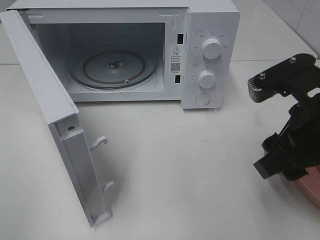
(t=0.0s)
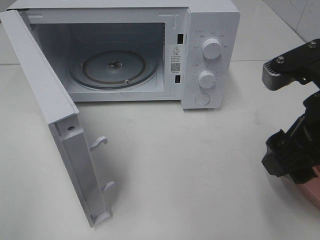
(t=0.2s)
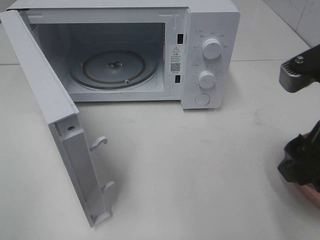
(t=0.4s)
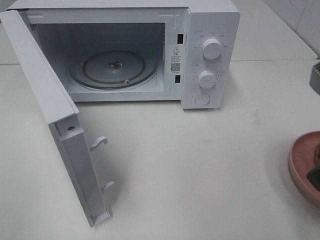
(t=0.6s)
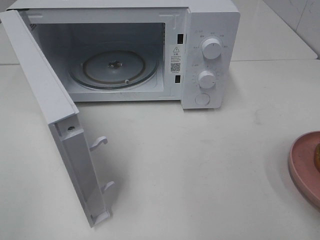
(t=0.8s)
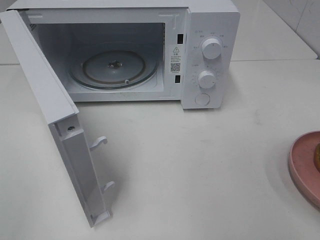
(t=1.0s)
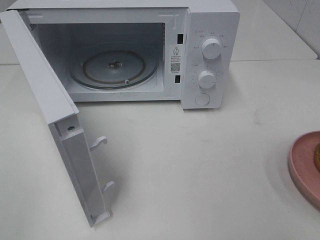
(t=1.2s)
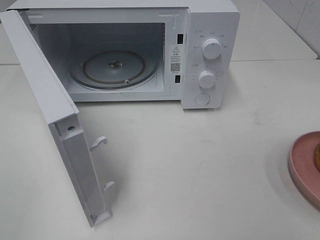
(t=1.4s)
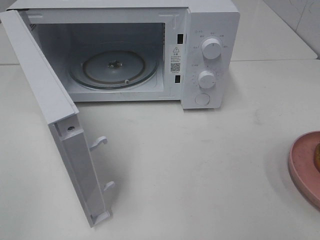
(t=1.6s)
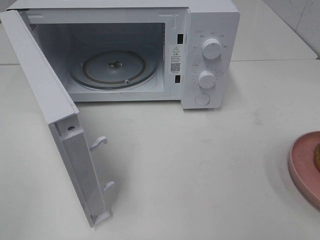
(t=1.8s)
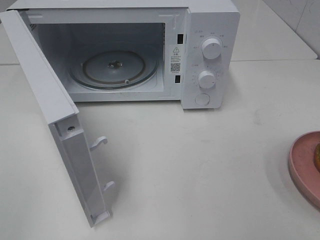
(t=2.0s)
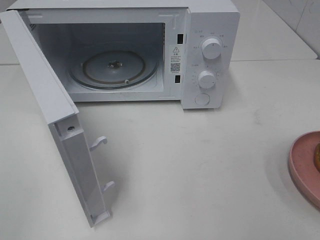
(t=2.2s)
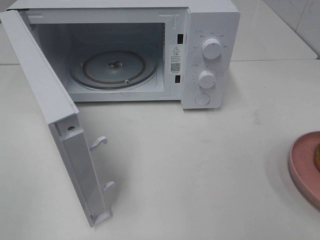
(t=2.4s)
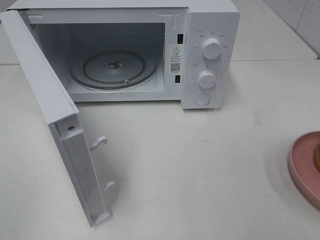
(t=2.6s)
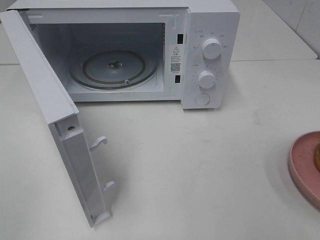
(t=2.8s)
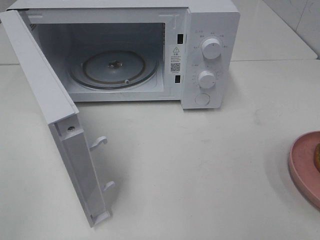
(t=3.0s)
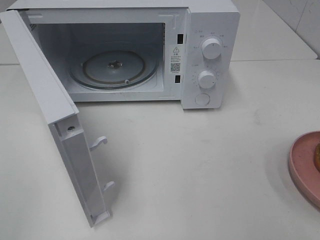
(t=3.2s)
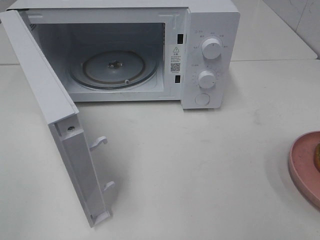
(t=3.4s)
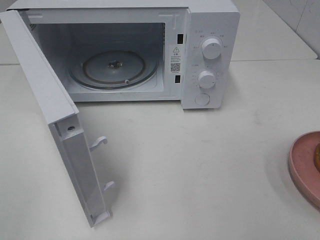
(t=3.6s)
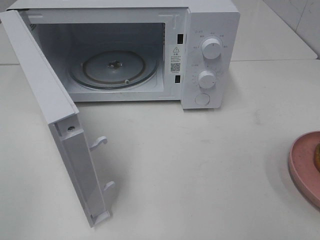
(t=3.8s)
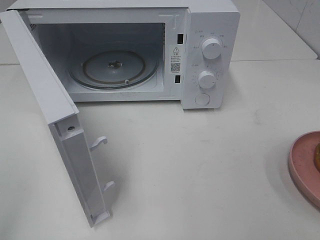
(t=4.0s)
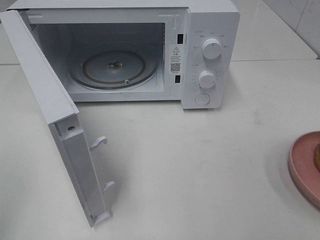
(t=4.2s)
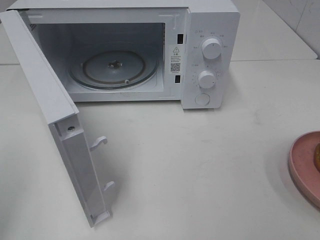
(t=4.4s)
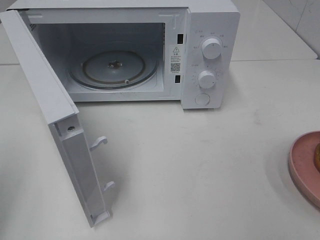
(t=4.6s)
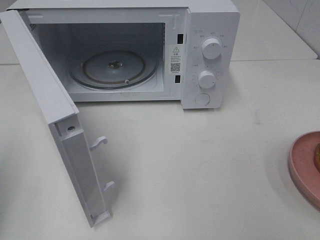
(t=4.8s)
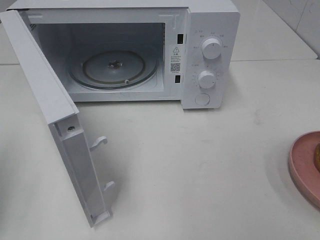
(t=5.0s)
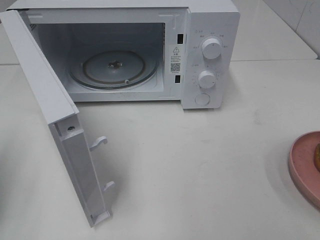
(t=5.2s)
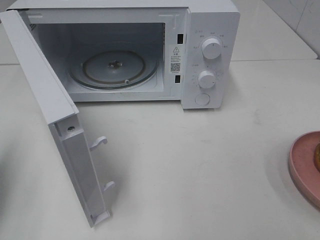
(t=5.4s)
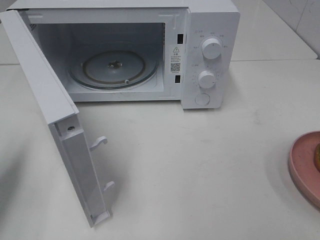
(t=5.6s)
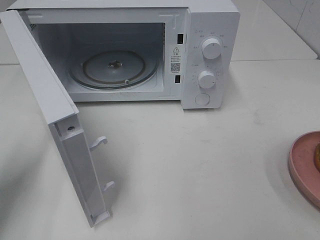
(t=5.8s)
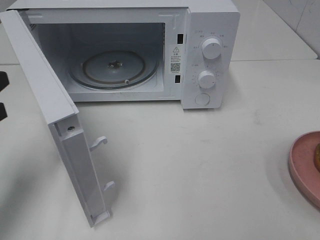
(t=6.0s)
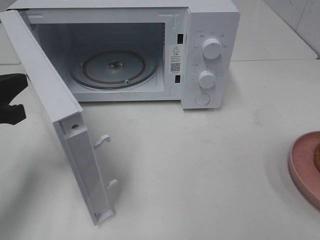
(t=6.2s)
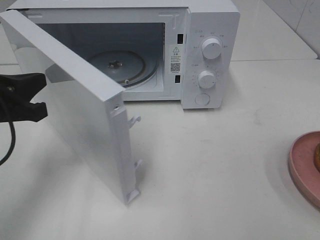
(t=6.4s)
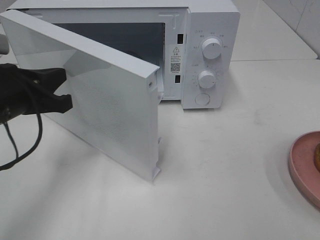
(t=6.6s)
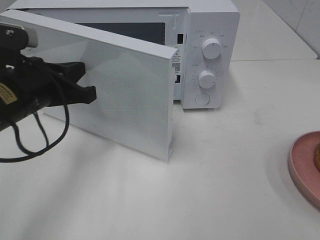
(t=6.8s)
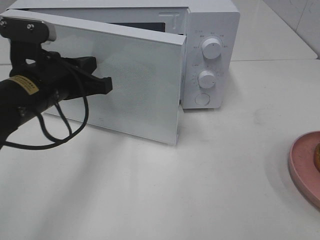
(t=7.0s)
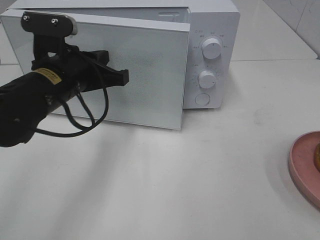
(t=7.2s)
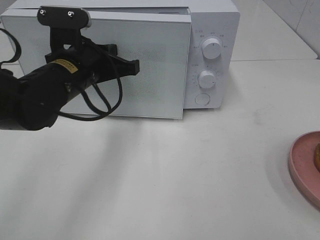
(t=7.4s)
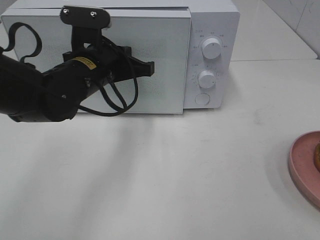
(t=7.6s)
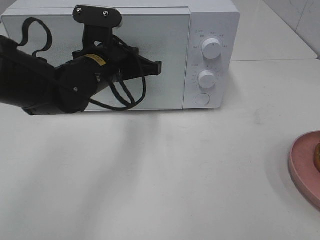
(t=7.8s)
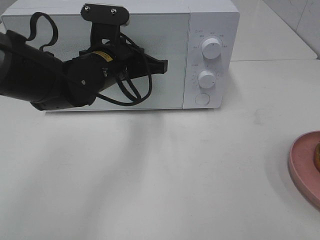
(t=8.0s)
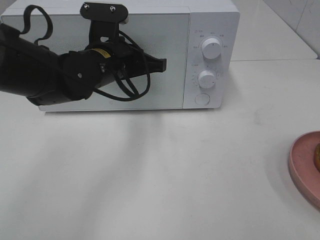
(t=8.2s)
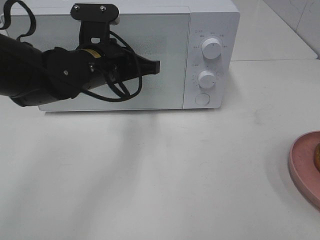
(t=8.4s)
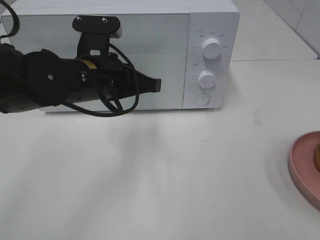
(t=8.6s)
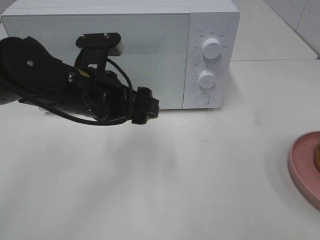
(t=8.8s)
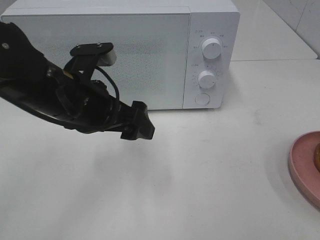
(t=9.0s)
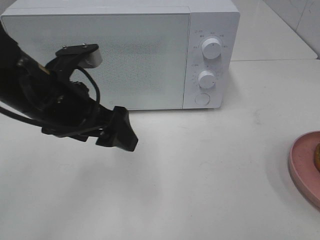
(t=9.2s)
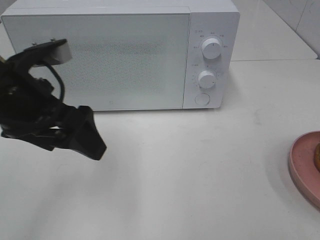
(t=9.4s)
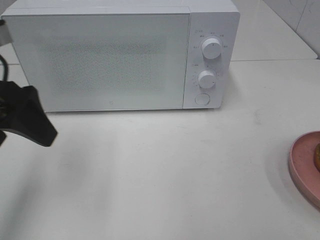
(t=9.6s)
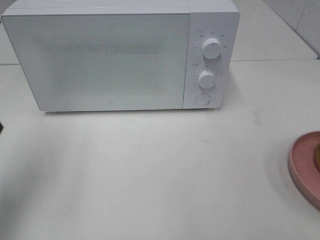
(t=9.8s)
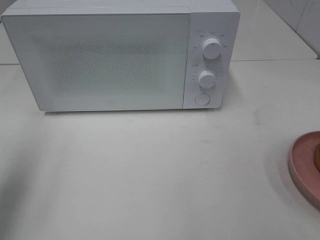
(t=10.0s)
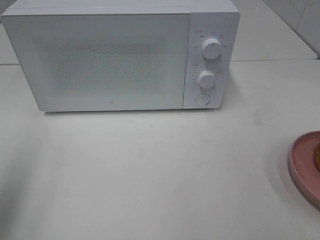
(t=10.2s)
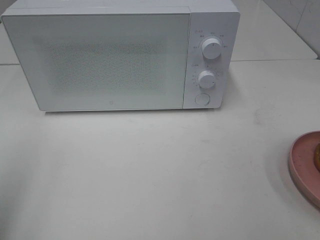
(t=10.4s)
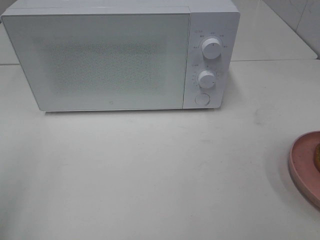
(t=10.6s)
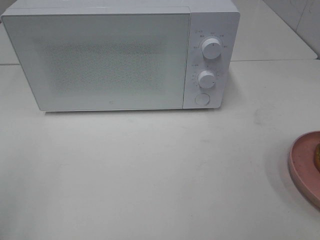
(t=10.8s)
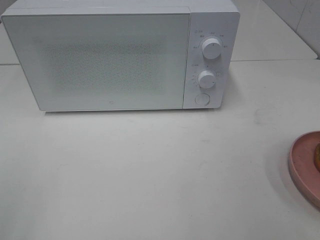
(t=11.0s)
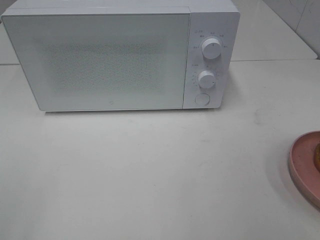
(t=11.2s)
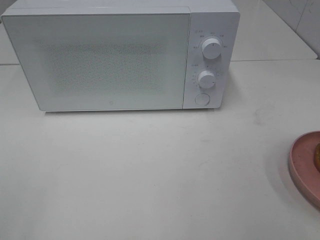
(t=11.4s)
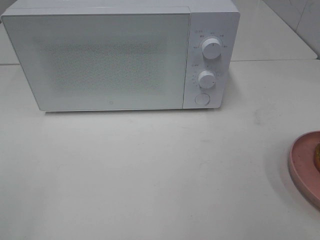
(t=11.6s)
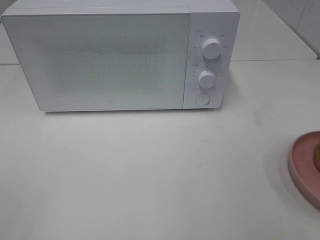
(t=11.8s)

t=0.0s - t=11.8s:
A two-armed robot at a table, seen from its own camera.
Task of the whole recording: Heat the burger.
Step, t=0.4s - t=8.4s: Left hand: close the microwave door.
t=0.0s - t=1.4s: The right gripper travels backward, to the right and upward by some 20 cm.
t=4.4s - t=6.0s: The left gripper heads forward and downward, covering about 15 cm.
t=6.0s - t=7.4s: The left gripper moves to the right and forward, roughly 20 cm.
t=7.4s - t=8.8s: The left gripper moves some 5 cm, and opens its fingers.
t=8.8s - t=10.4s: The left gripper is displaced to the left, backward and upward by about 30 cm.

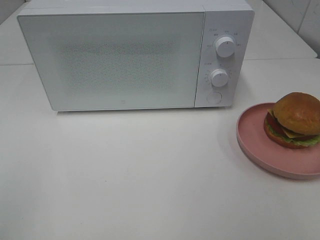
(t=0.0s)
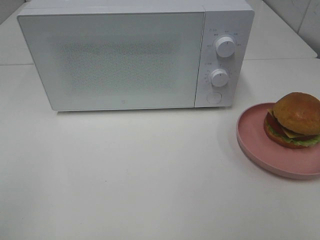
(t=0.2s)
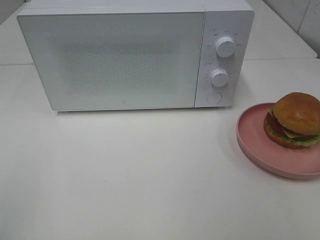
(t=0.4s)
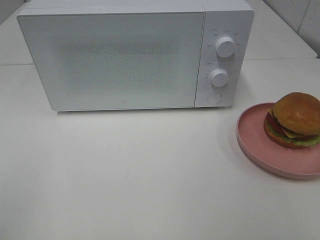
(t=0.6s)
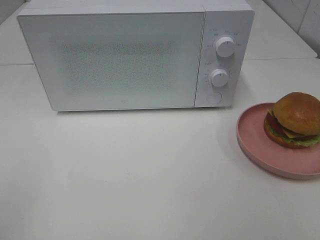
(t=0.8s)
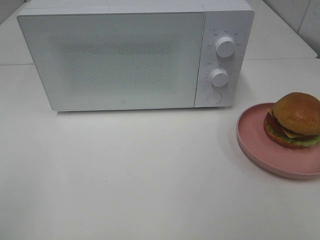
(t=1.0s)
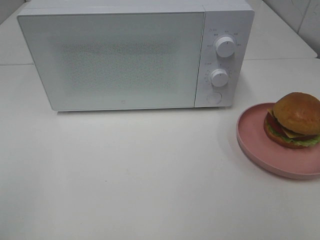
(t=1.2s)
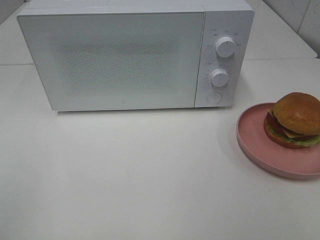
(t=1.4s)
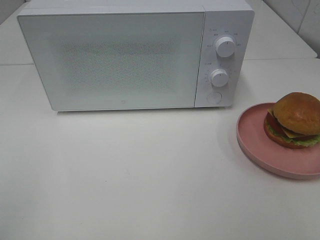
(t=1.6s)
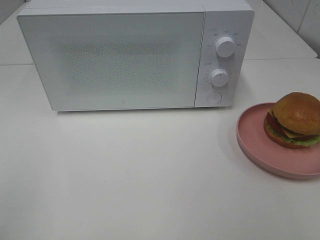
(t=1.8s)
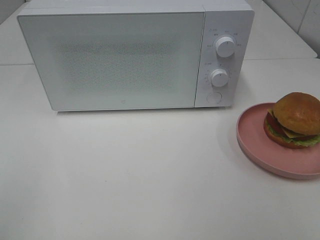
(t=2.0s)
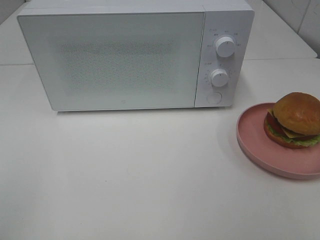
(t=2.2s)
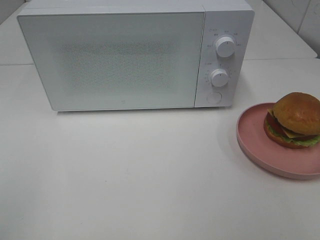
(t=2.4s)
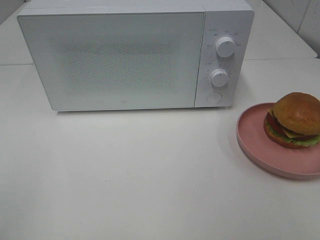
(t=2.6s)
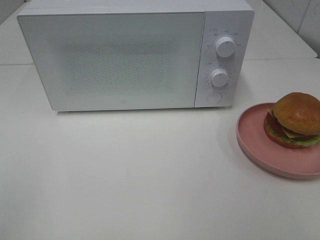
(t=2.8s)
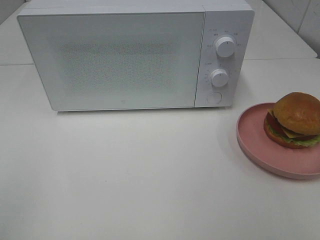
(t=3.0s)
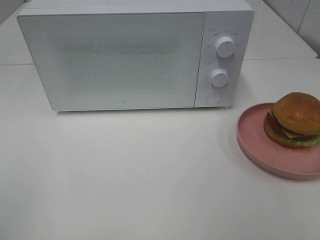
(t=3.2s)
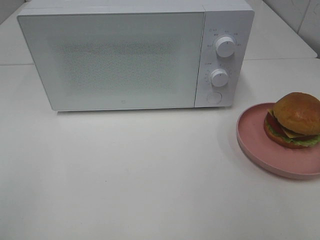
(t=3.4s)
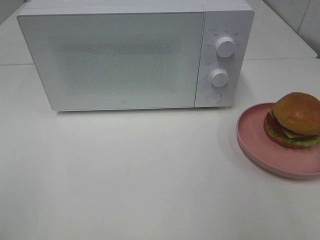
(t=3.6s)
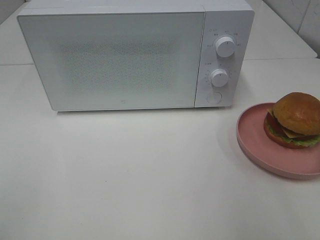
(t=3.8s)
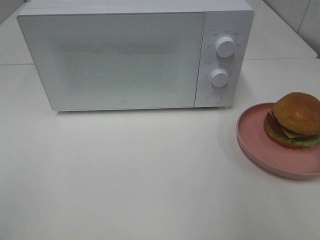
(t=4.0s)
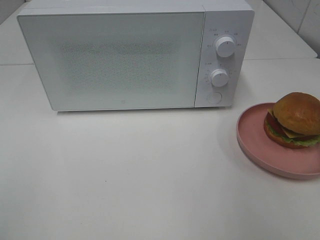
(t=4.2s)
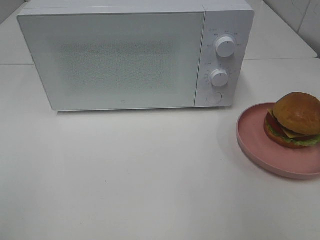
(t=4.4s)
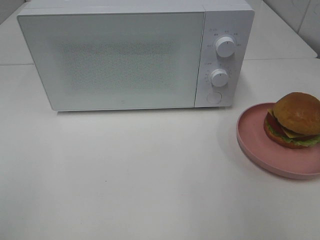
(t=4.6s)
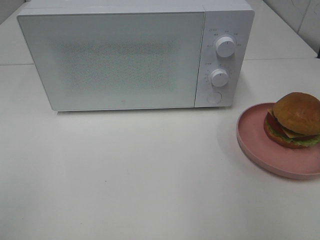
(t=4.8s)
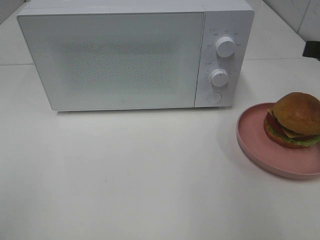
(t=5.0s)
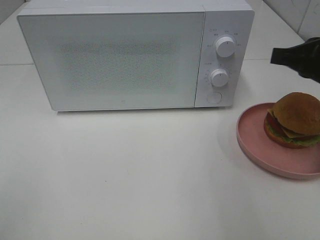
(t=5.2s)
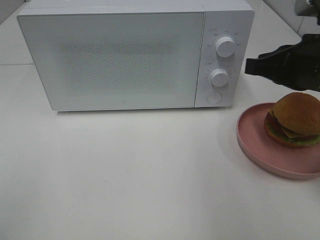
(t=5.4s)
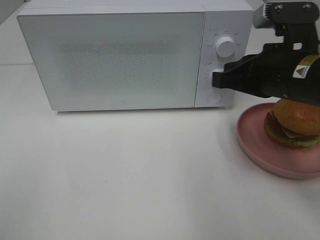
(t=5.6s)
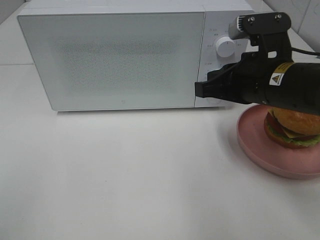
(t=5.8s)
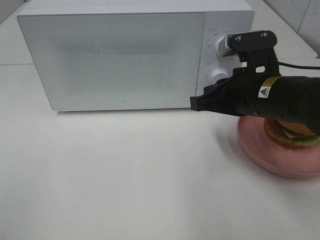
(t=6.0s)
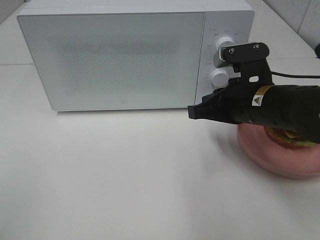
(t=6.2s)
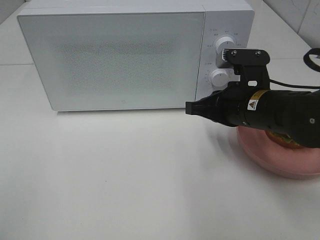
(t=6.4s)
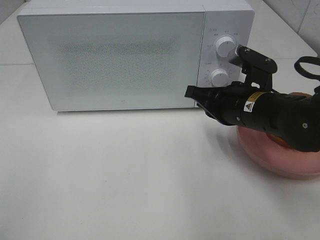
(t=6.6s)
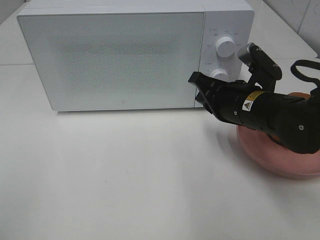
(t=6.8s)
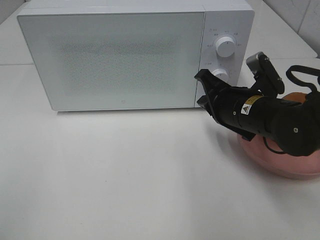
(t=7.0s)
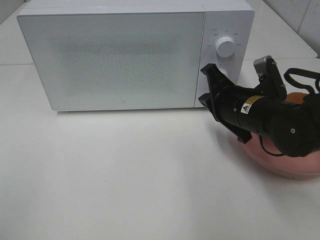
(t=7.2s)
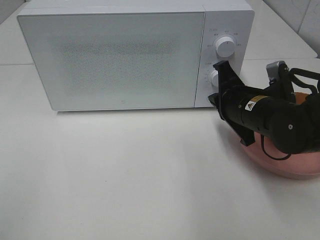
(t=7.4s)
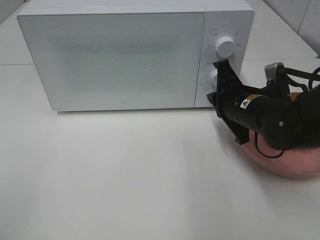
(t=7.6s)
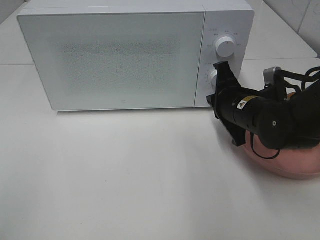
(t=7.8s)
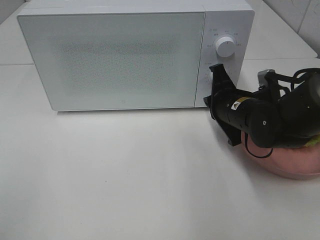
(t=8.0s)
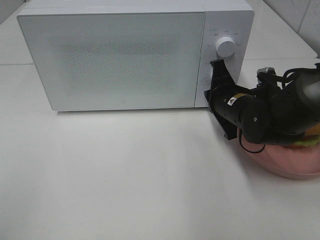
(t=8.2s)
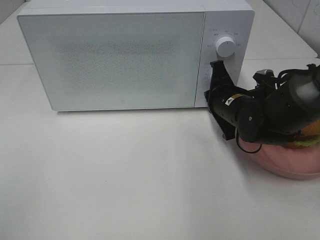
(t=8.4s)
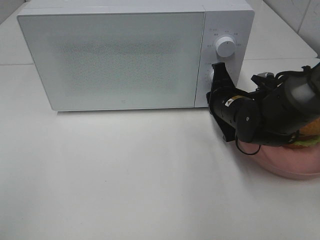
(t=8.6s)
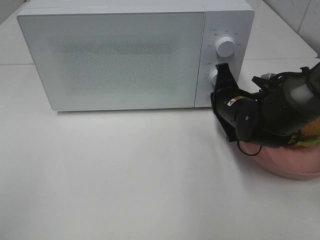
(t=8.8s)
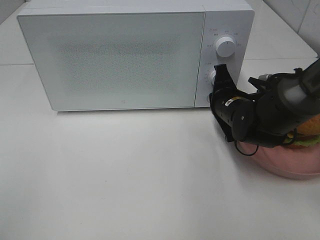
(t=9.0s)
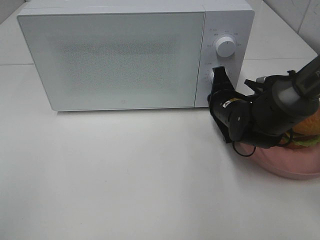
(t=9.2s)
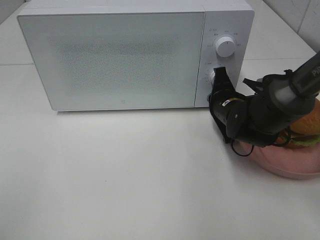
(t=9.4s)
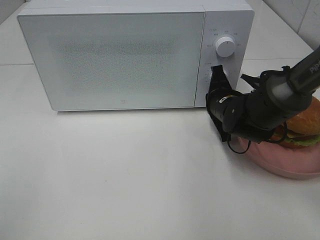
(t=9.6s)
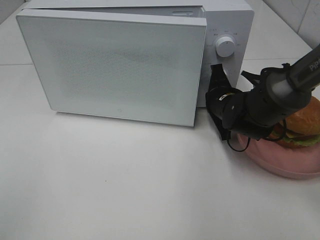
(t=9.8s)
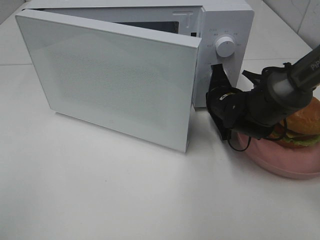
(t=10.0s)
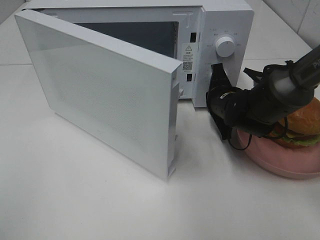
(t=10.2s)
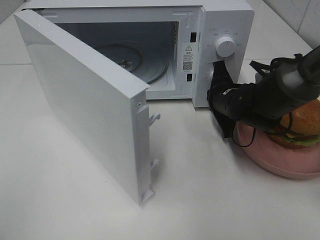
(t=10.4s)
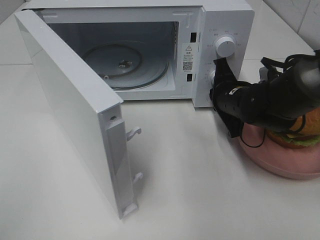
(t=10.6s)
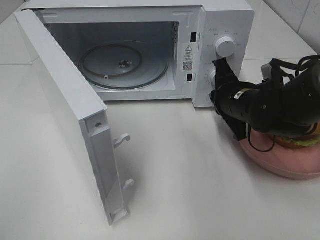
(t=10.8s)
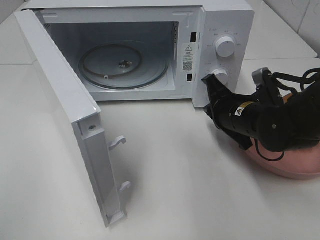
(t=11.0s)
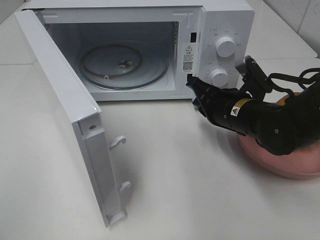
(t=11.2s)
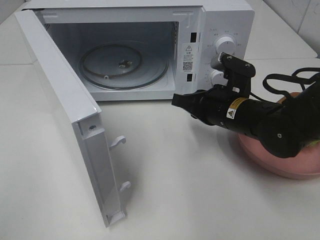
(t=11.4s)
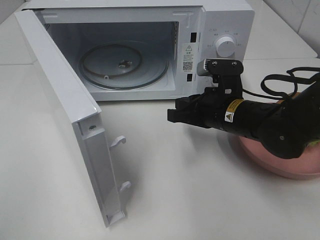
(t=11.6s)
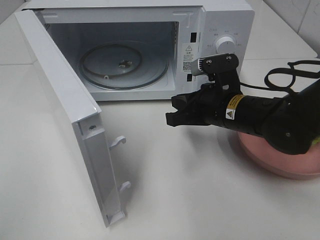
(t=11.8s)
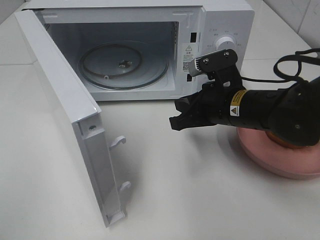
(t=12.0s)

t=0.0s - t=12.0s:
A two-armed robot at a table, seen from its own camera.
Task of the whole recording: Heat the burger.
Step, t=0.0s - t=10.6s: Right hand: press the switch.
t=0.0s - t=3.0s: Both grippers stay put.
t=4.4s - t=6.0s: The right gripper goes some 20 cm to the left, downward and forward, and closes up.
t=6.0s - t=7.6s: The right gripper moves downward, some 5 cm.
t=7.6s - t=9.0s: The right gripper moves about 5 cm.
t=10.4s - t=12.0s: The right gripper heads backward, covering approximately 10 cm.
